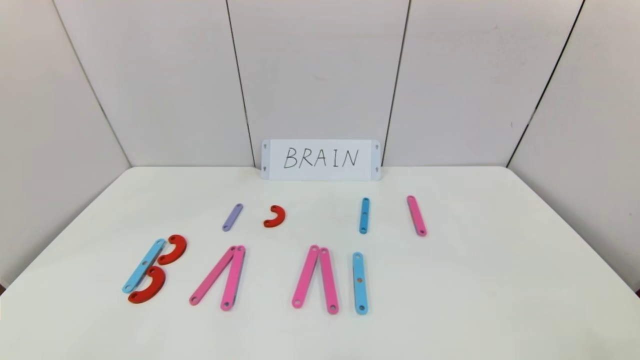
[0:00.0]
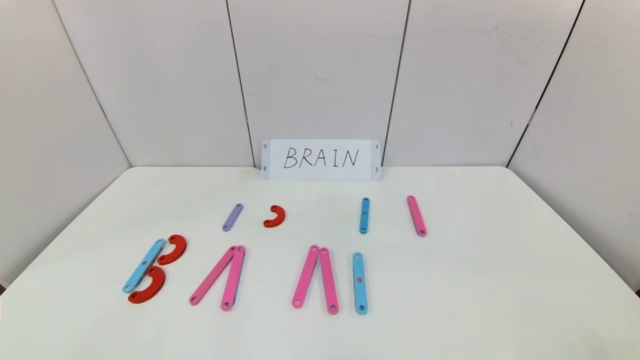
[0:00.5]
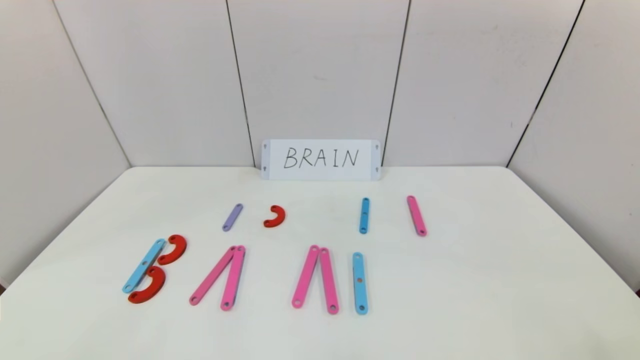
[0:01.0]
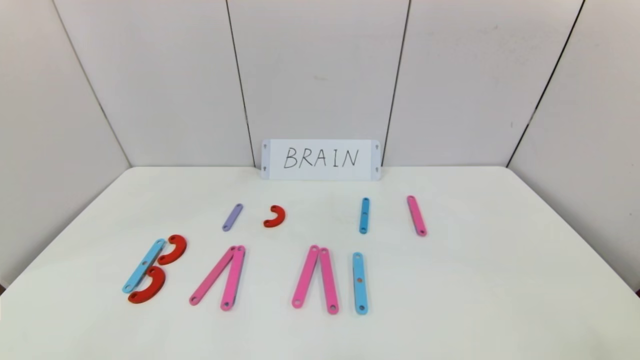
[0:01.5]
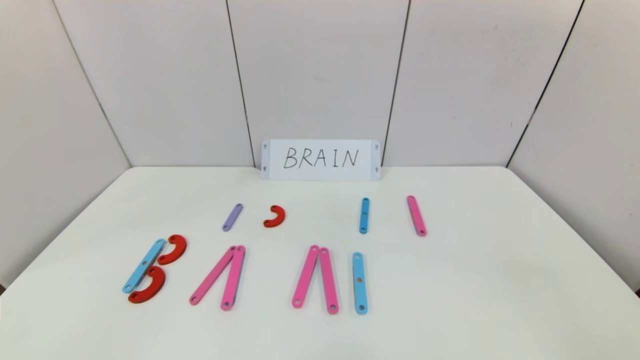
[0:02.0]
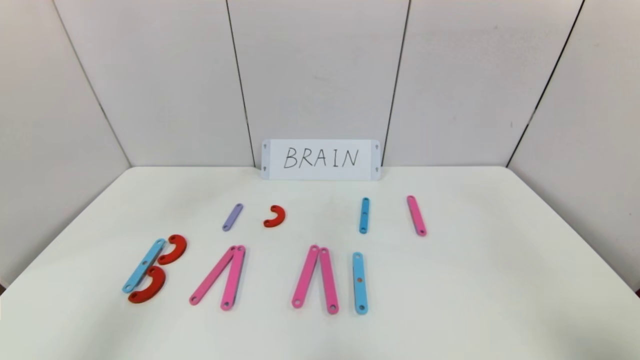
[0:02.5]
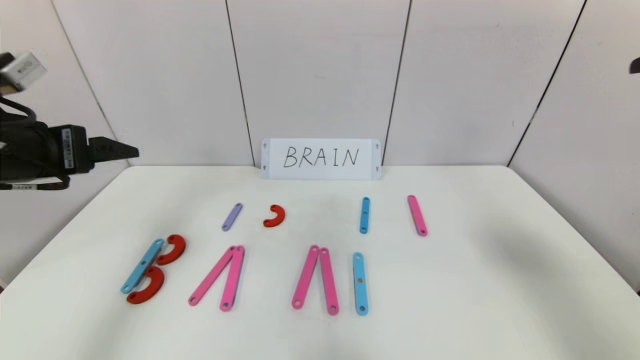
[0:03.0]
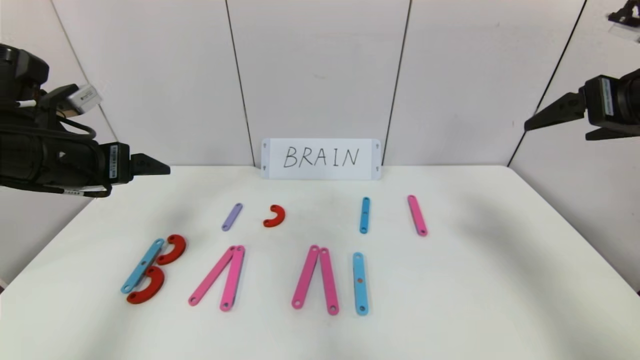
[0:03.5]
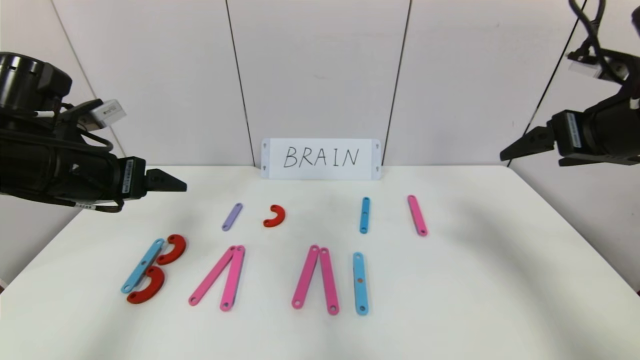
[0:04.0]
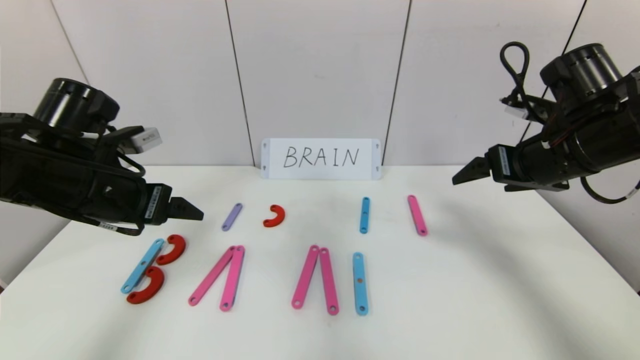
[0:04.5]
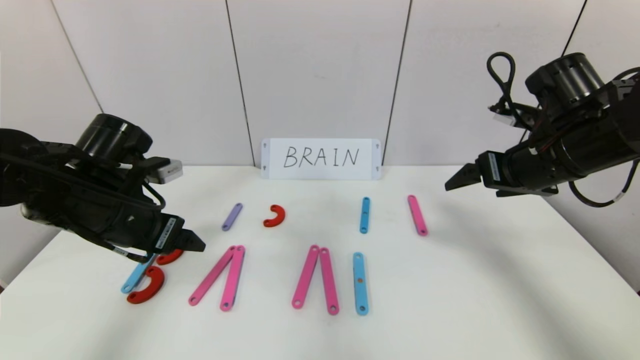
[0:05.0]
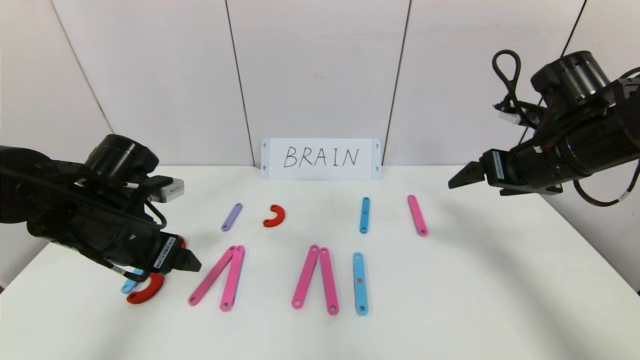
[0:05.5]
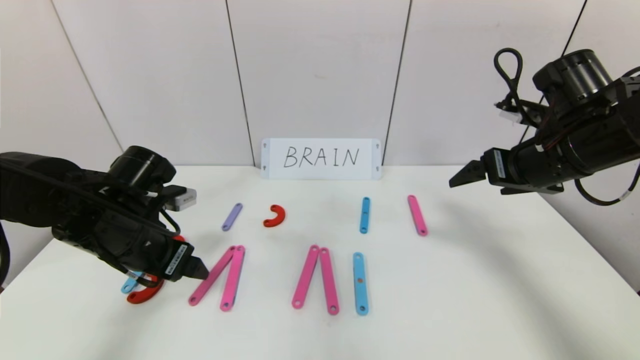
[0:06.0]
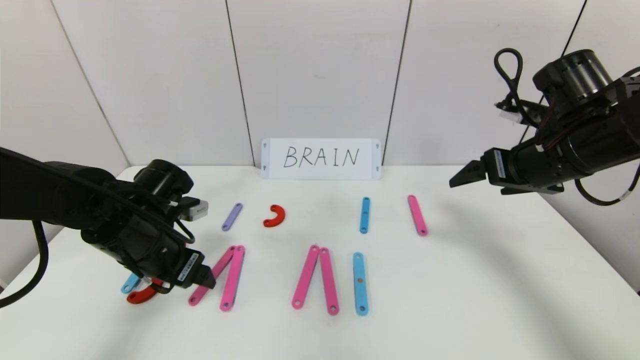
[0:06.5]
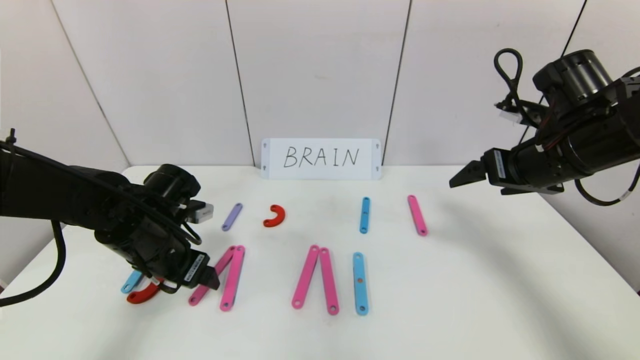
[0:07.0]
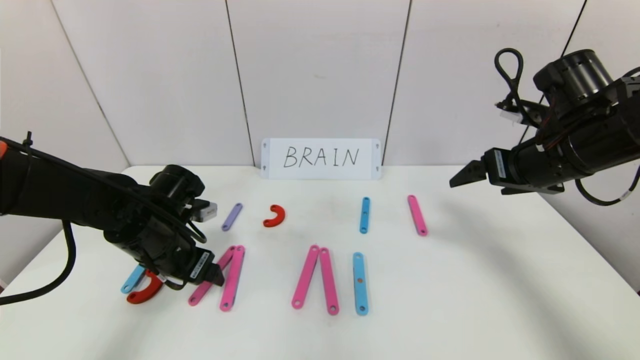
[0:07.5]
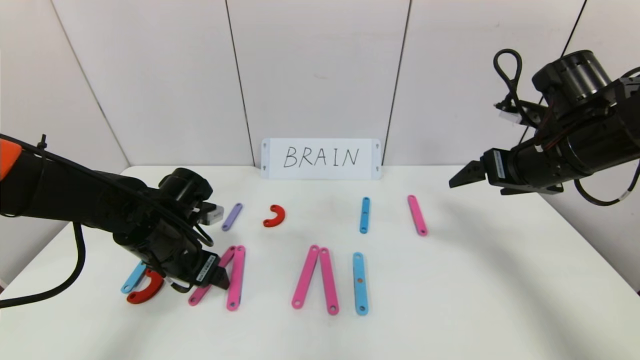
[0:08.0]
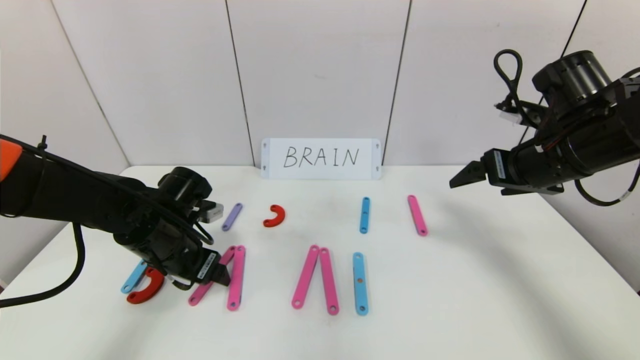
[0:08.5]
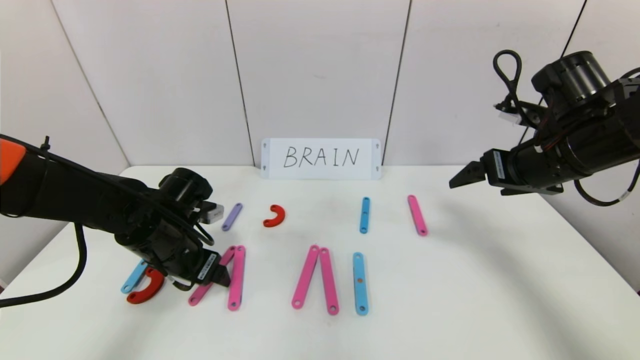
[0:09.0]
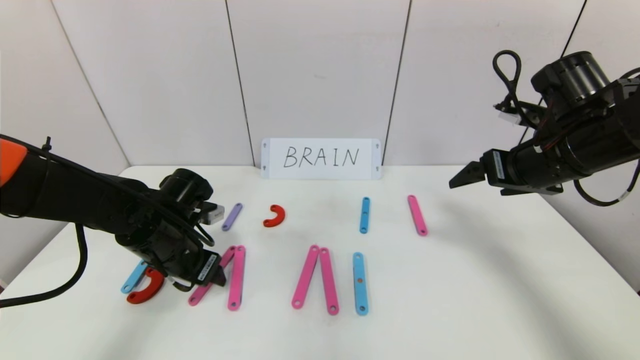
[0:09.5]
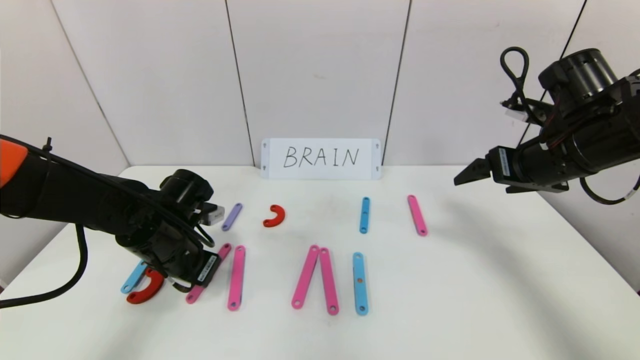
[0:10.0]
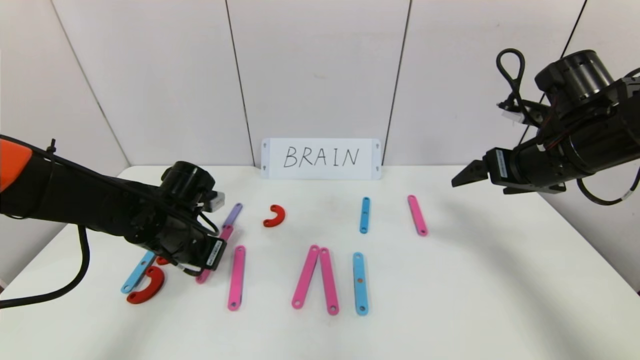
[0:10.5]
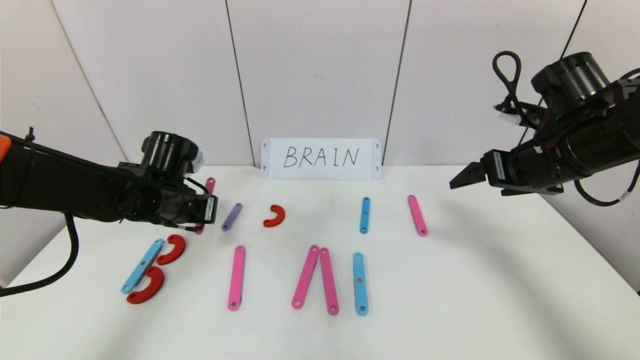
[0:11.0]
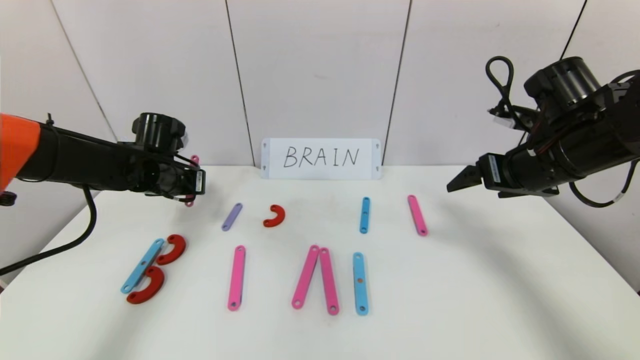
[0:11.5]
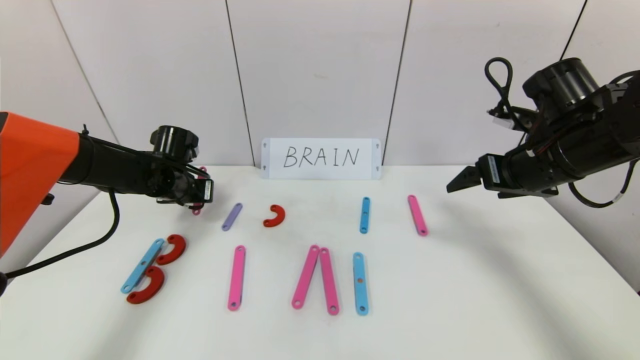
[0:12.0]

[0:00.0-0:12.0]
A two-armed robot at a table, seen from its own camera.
Task of the whole recording: rearrange the word baai as brain.
2.0 to 4.0 s: The grippers both shift forward by about 30 cm.
4.0 to 6.0 s: The left gripper heads downward, covering approximately 10 cm, while the right gripper shifts about 5 cm downward.
6.0 to 8.0 s: The left gripper moves roughly 5 cm.
8.0 to 10.0 s: The left gripper closes up.
10.0 to 12.0 s: The left gripper shifts approximately 10 cm forward.

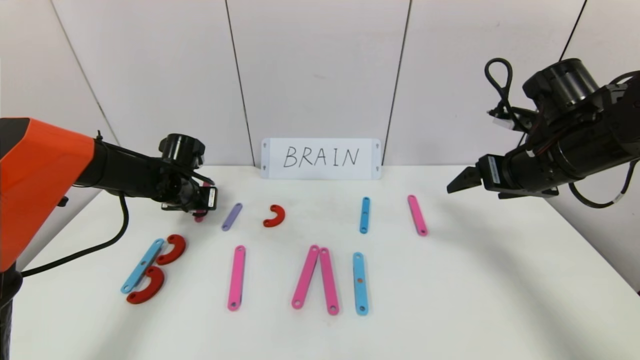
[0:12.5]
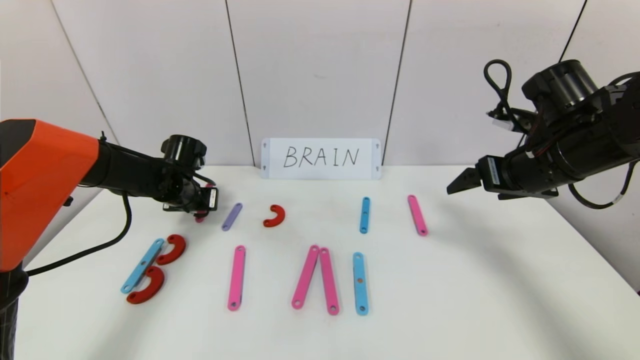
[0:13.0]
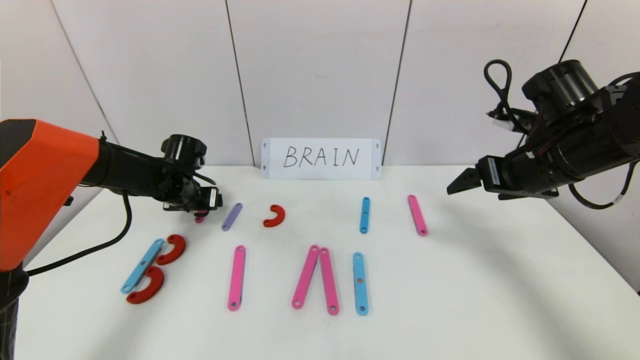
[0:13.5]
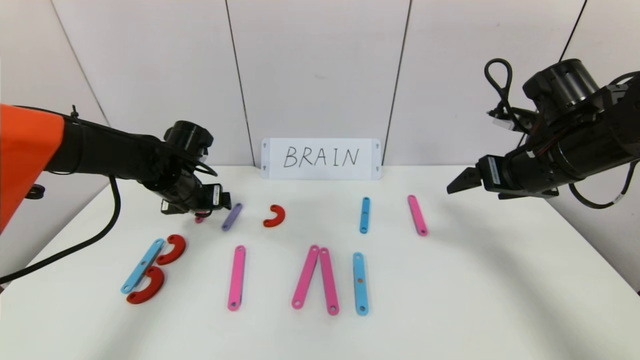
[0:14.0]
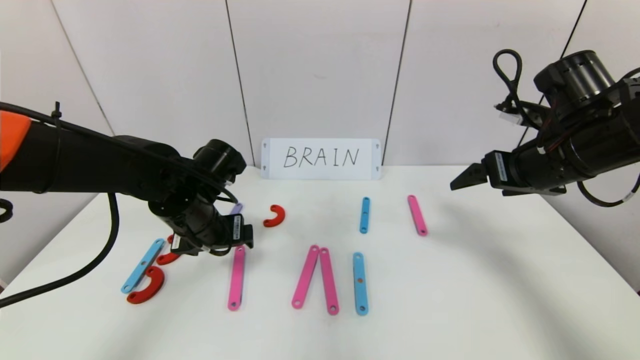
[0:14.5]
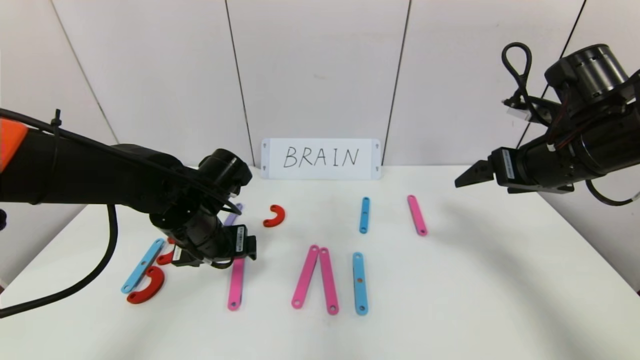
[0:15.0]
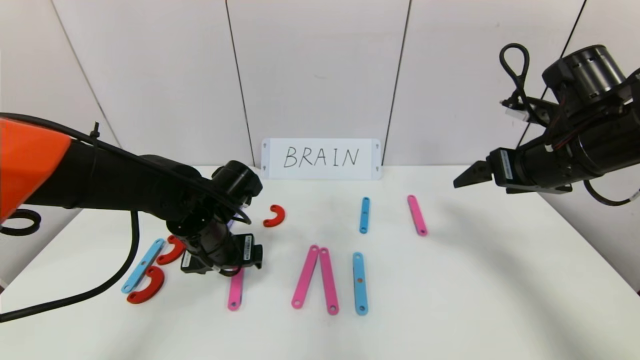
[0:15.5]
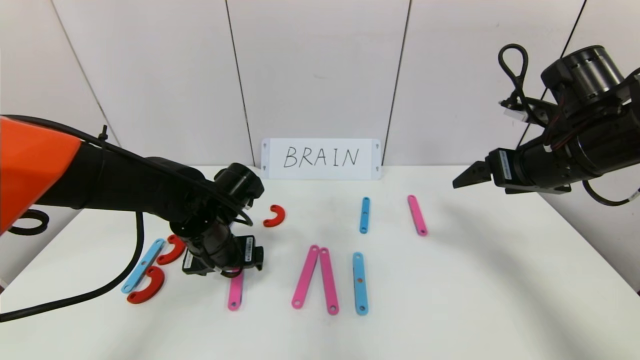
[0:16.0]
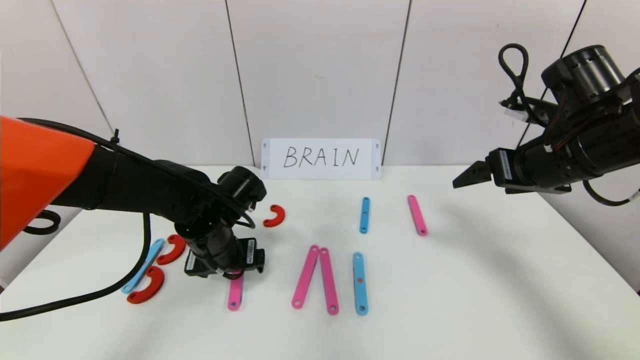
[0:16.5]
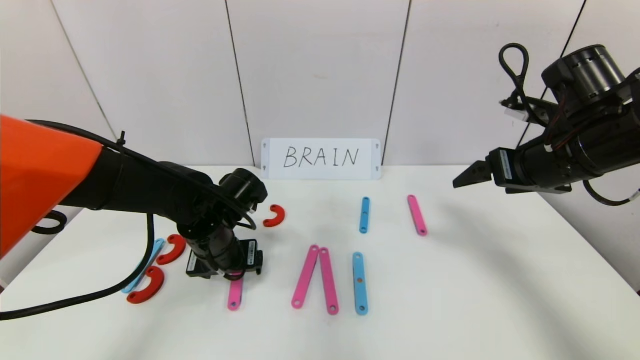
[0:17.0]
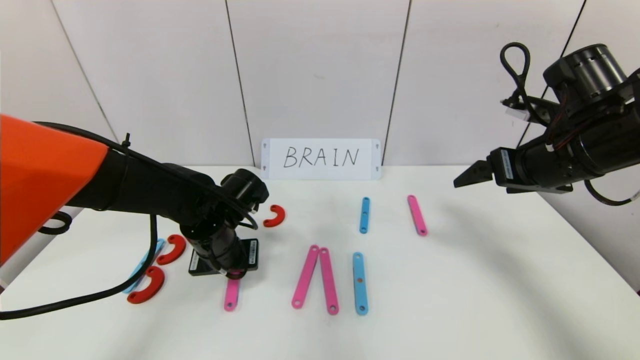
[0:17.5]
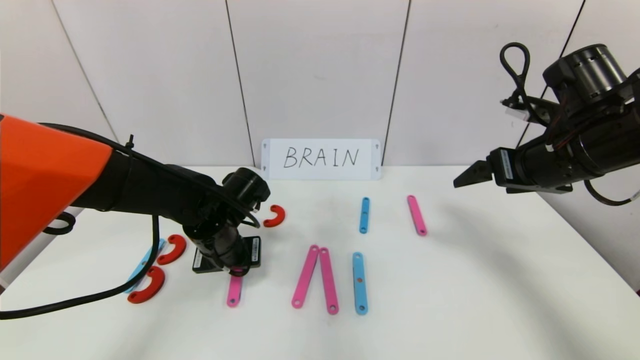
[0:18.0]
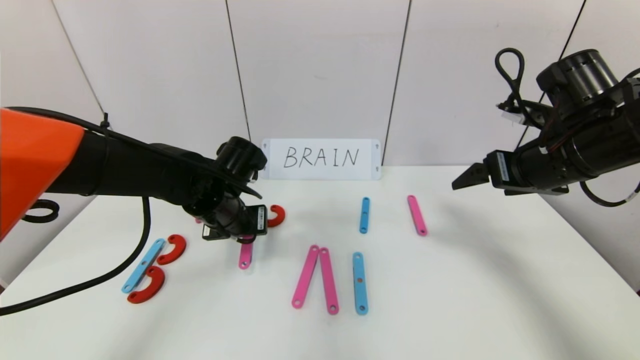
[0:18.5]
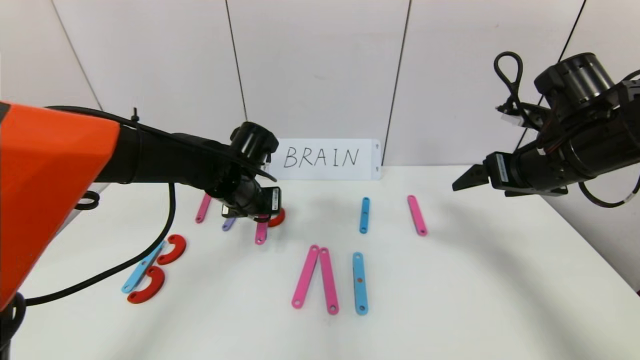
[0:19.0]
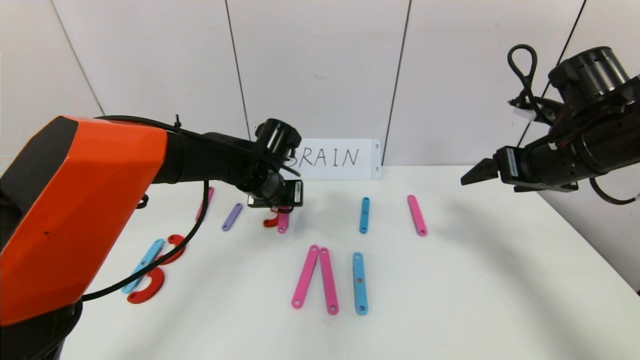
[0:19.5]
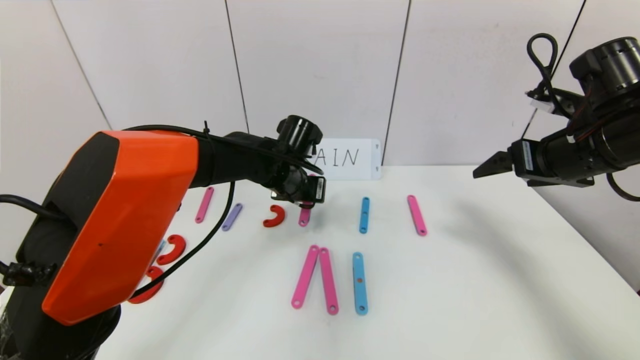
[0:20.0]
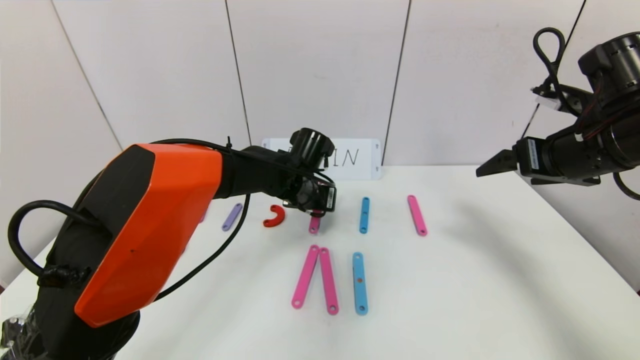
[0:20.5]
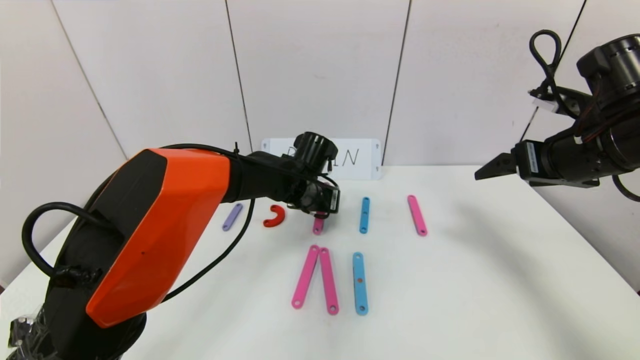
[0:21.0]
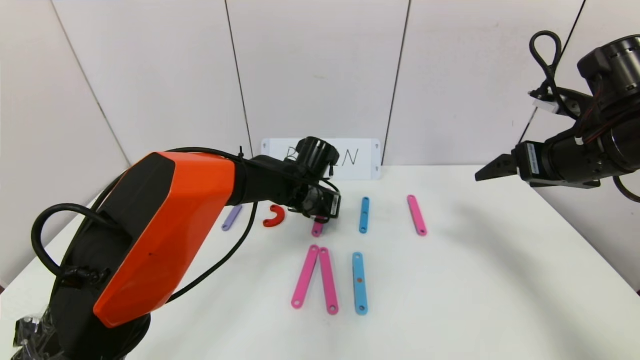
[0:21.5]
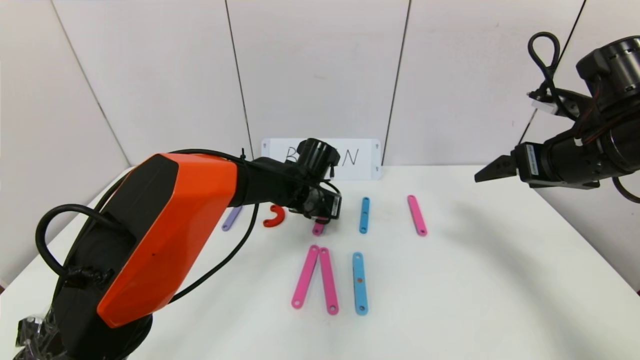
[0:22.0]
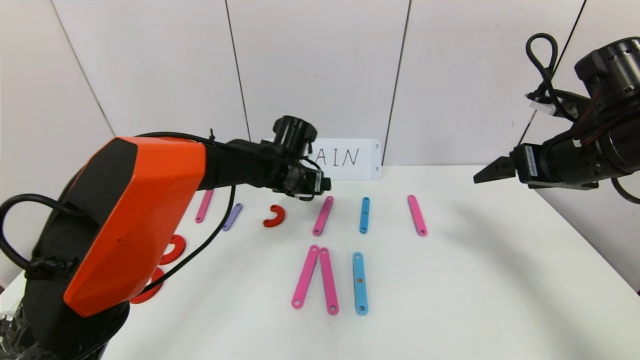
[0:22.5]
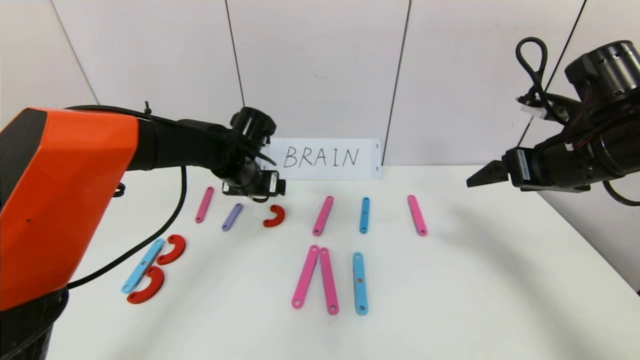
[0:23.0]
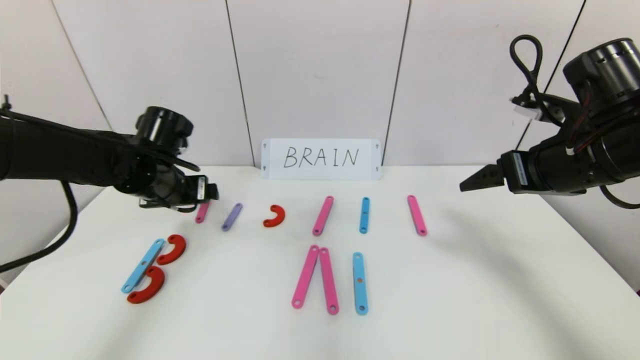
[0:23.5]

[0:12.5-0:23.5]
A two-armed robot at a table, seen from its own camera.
Task of the whole recording: rearrange the word baai as brain.
Step, 12.5 to 22.0 s: Disassemble the second character A.
12.5 to 14.5 s: The left gripper heads backward and to the right, covering some 15 cm, and opens.
14.5 to 16.0 s: The grippers stay close to where they were, moving slightly.
16.0 to 18.0 s: The left gripper closes.
18.0 to 20.0 s: The left gripper moves to the right and forward, some 15 cm.
21.5 to 23.5 s: The left gripper shifts about 20 cm to the left, and opens.
